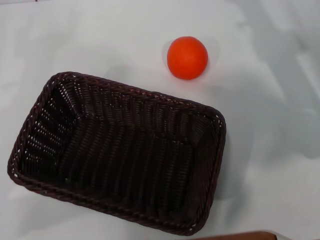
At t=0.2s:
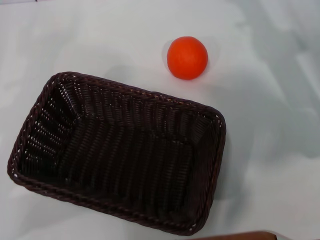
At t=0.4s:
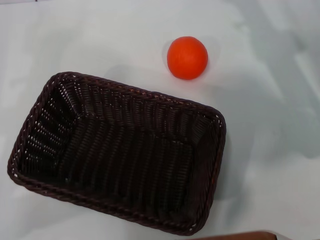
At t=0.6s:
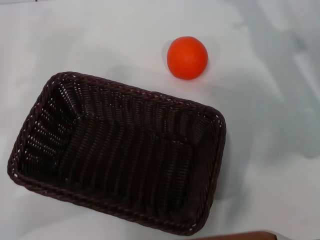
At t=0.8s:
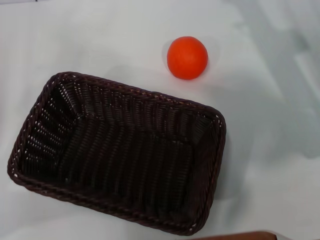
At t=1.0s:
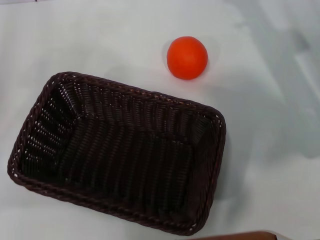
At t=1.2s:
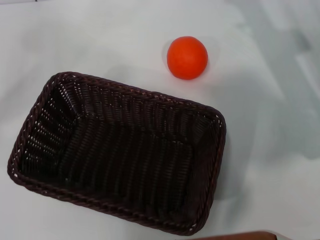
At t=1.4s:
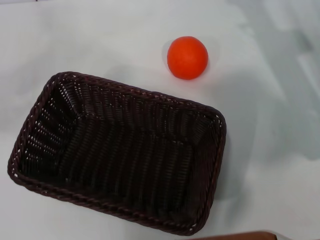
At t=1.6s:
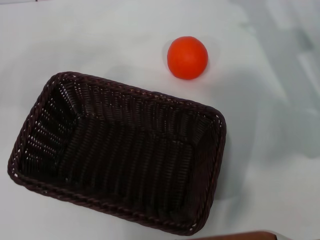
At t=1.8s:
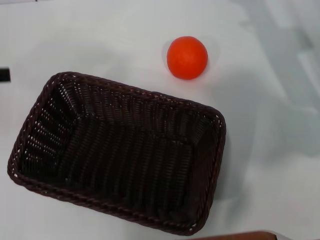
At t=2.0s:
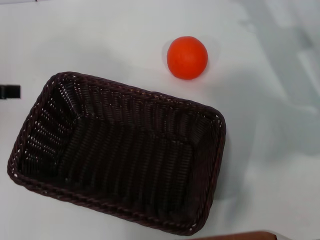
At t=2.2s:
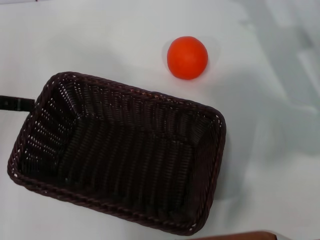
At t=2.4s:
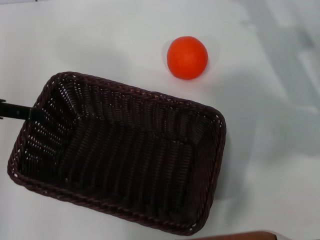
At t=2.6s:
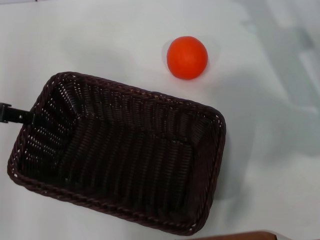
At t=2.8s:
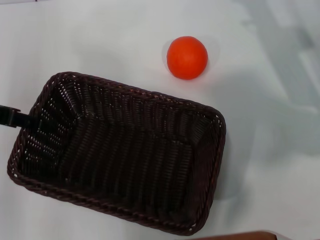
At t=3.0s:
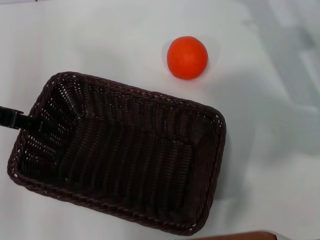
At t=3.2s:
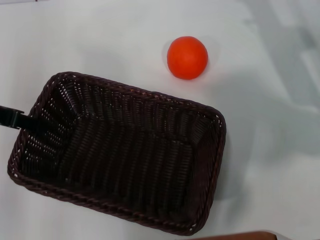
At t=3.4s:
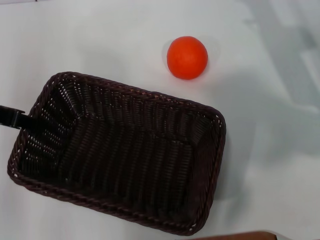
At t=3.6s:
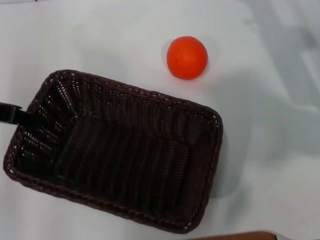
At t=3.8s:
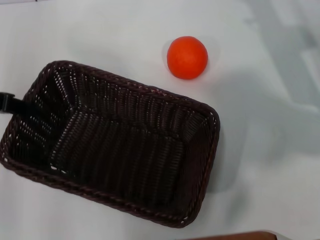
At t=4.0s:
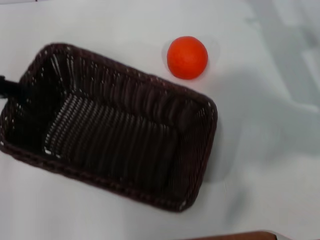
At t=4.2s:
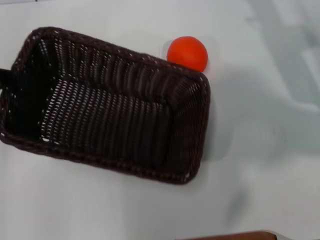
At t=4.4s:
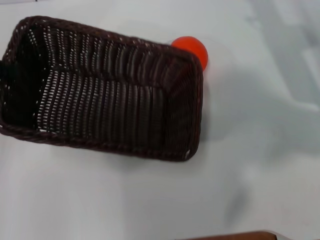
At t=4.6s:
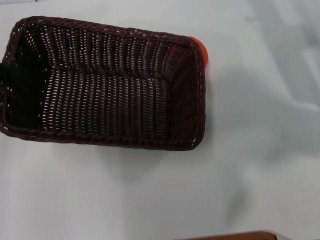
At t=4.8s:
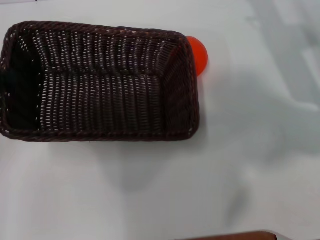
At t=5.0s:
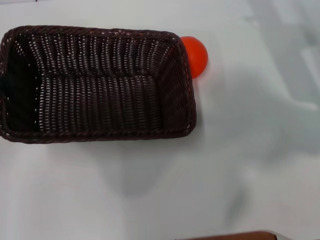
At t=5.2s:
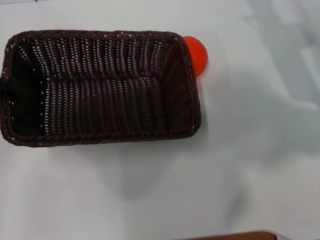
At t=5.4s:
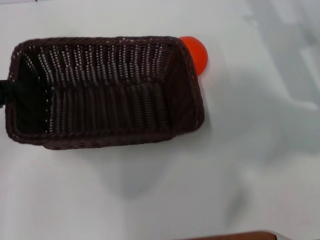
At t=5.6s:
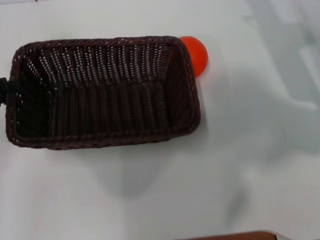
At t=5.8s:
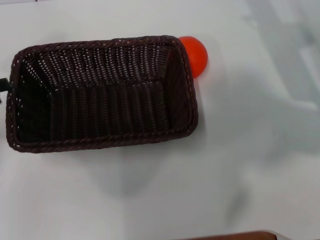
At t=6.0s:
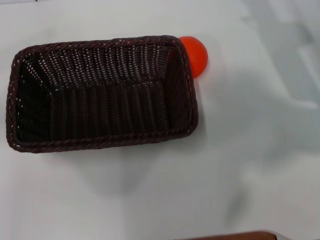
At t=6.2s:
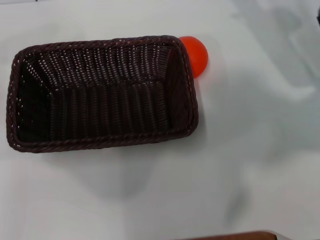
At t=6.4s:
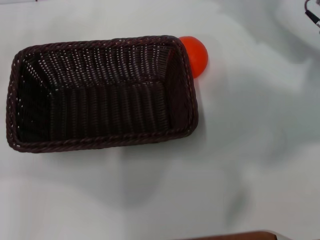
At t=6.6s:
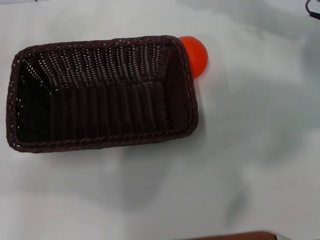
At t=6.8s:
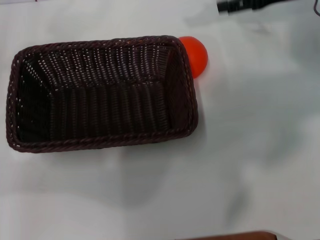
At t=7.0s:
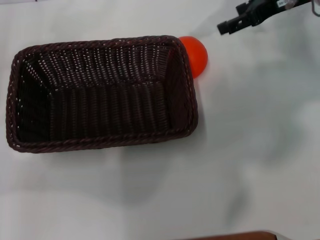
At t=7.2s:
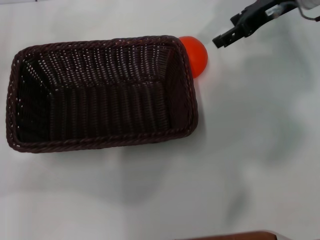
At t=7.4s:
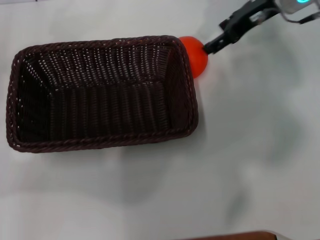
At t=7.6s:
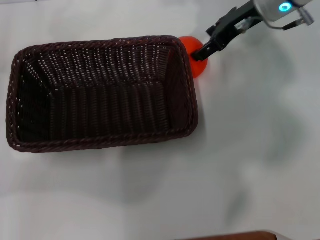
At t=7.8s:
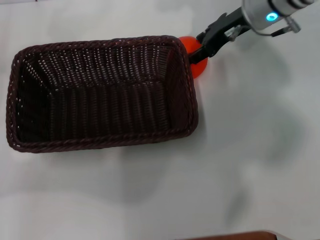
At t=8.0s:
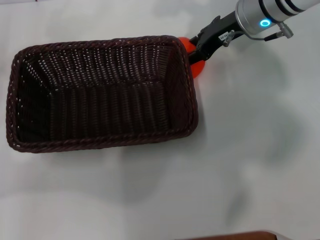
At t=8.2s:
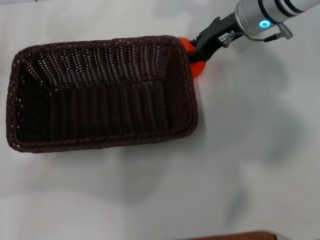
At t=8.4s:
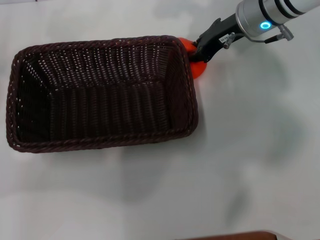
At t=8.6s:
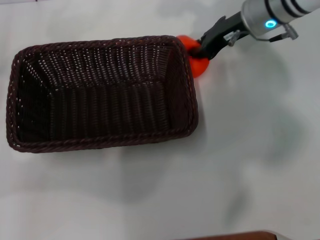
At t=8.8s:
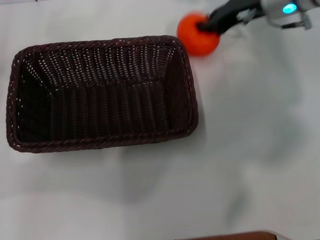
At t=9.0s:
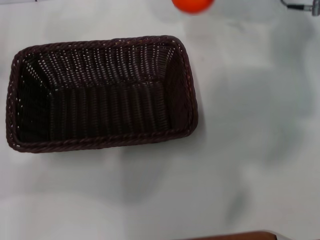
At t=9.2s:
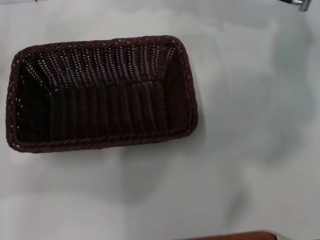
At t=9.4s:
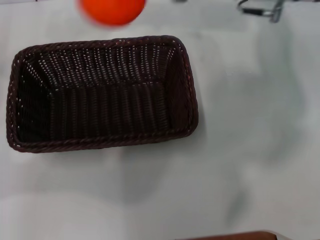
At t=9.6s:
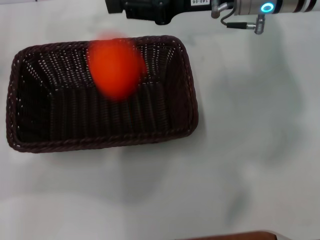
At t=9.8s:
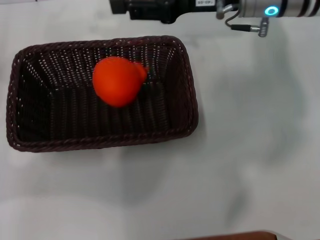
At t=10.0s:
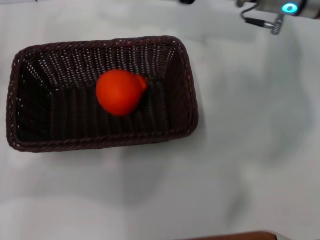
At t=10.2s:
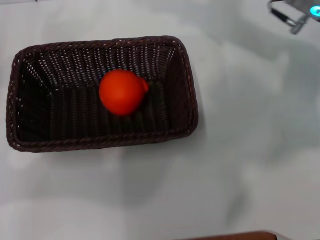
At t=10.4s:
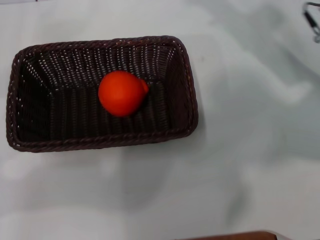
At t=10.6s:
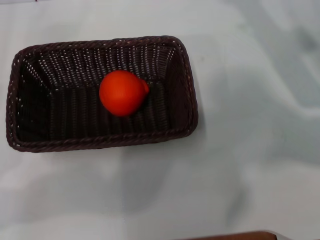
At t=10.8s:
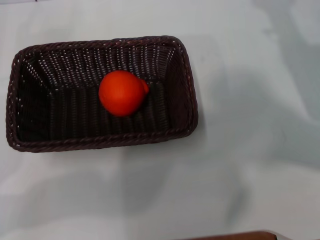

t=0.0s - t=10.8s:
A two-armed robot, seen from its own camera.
Task of the whole recording: the left gripper pick up the black basket and place it horizontally in the middle of the table, the right gripper pick up the orange and place it into the black basket.
Step, t=6.0s - t=8.8s: Pick up the orange with the right gripper.
Step, t=9.0s - t=10.0s: Place the orange into the dark basket with the right gripper.
t=0.0s - t=1.6s: The left gripper travels upward by some 15 cm.
t=1.6s - t=3.0s: The left gripper is displaced to the right by approximately 10 cm.
t=3.0s - t=4.6s: The left gripper moves to the left, some 5 cm, and closes up.
t=4.6s - t=6.2s: The left gripper heads to the left, covering some 5 cm, and opens.
t=6.2s - t=7.8s: The right gripper is displaced to the left and forward by some 10 cm, while the left gripper moves about 5 cm, and opens its fingers.
t=7.8s - t=9.2s: The right gripper goes some 5 cm upward, and closes up.
t=9.2s - t=10.8s: The right gripper heads to the right, downward and backward, covering some 15 cm, and opens.
